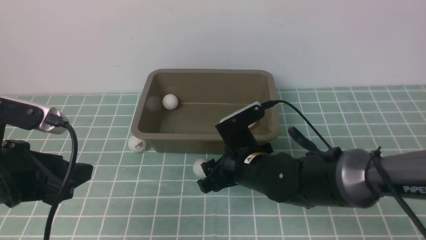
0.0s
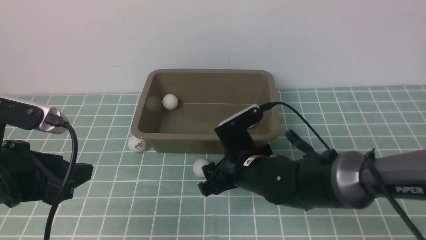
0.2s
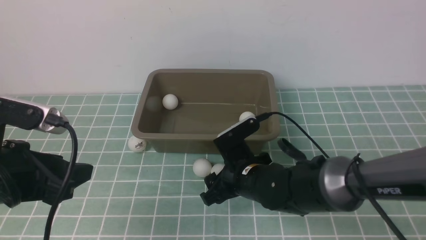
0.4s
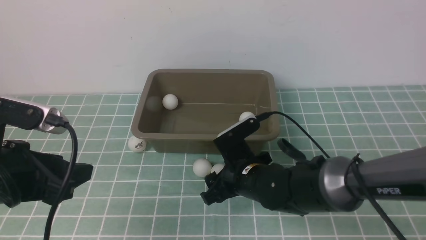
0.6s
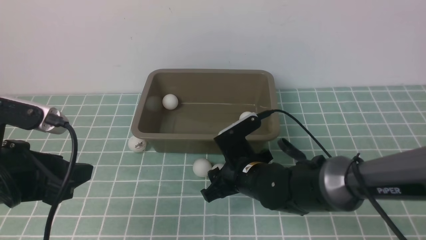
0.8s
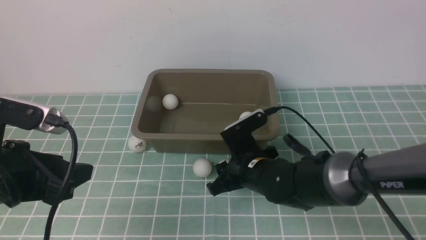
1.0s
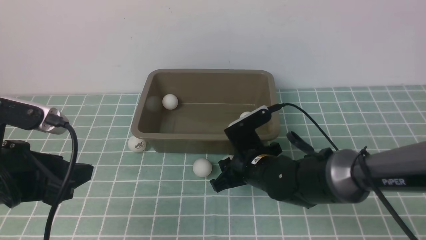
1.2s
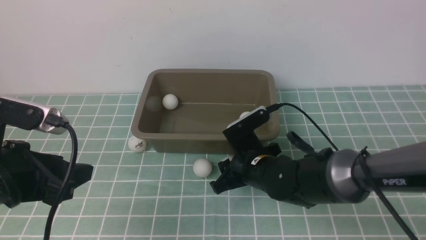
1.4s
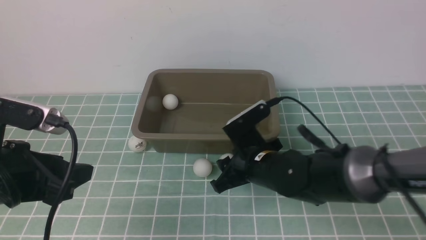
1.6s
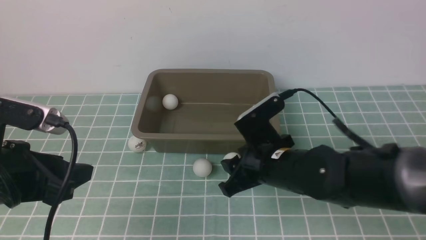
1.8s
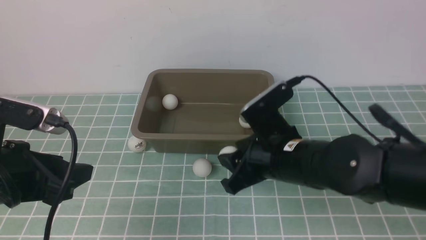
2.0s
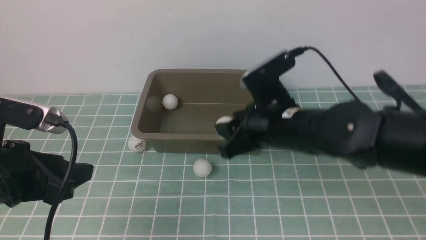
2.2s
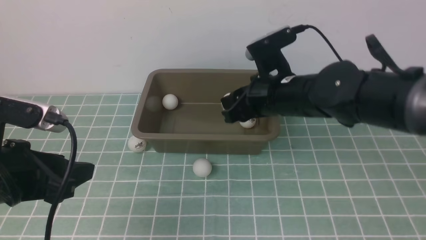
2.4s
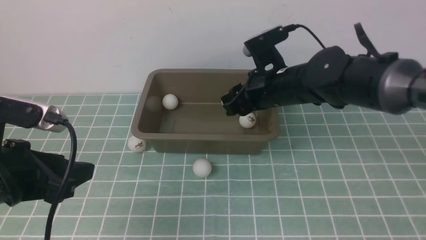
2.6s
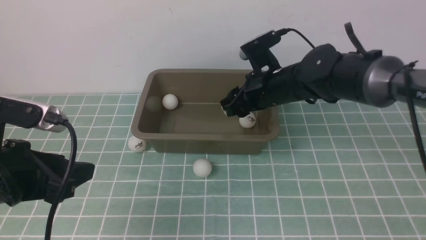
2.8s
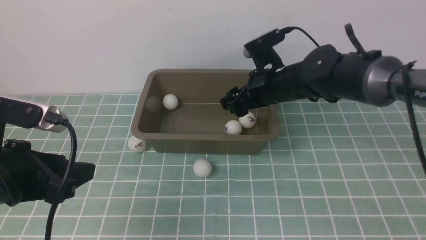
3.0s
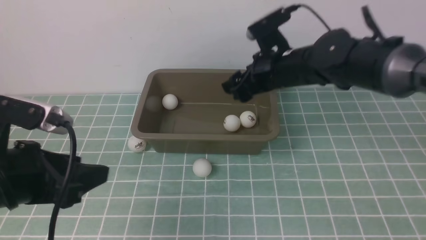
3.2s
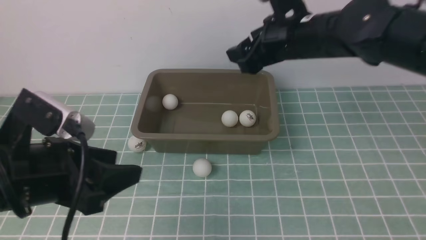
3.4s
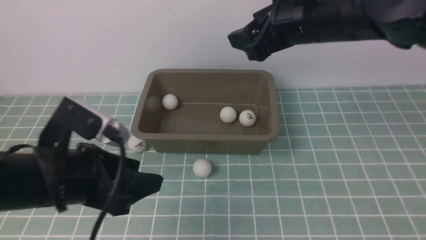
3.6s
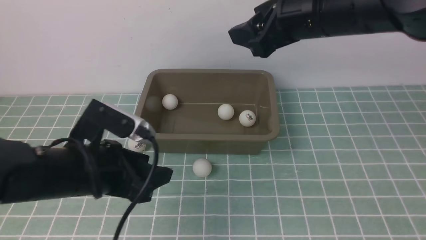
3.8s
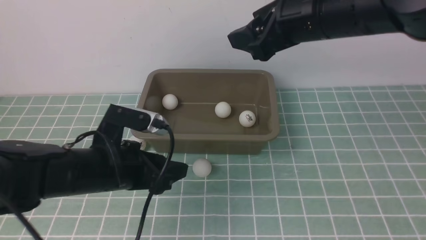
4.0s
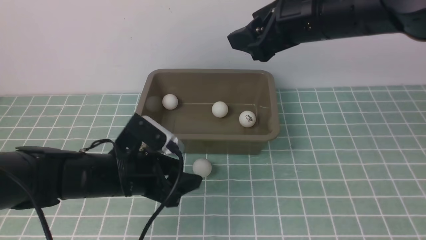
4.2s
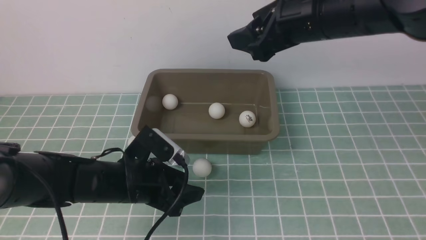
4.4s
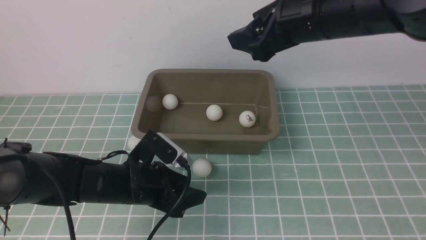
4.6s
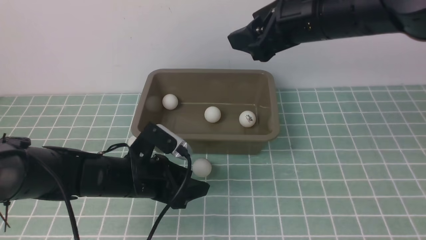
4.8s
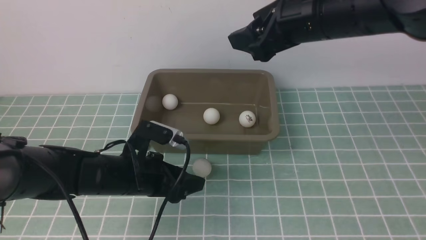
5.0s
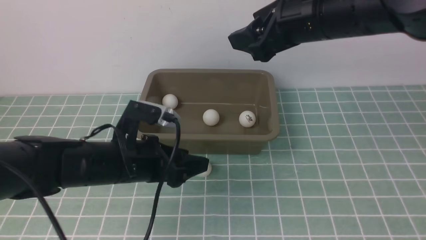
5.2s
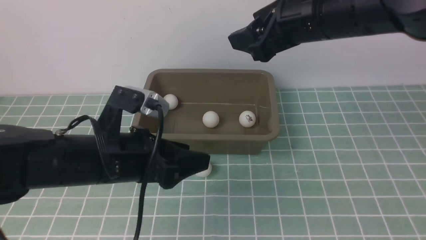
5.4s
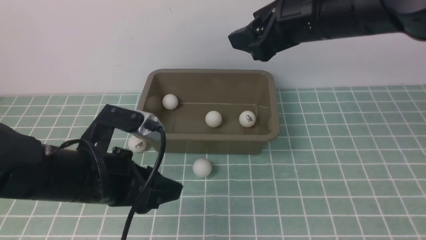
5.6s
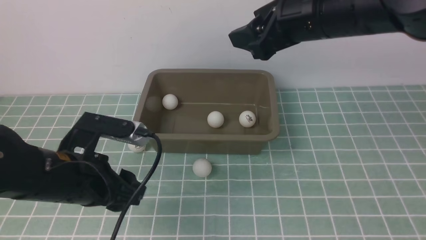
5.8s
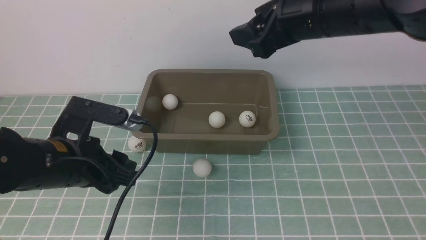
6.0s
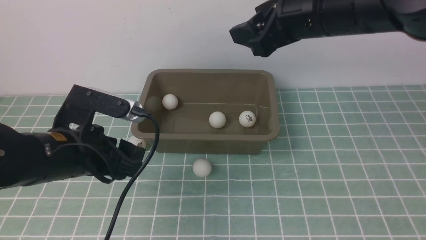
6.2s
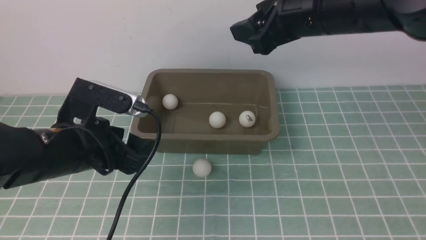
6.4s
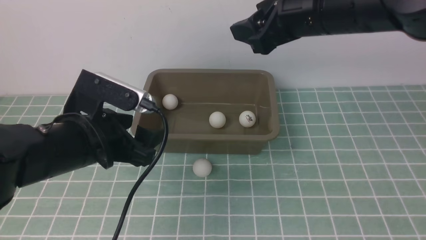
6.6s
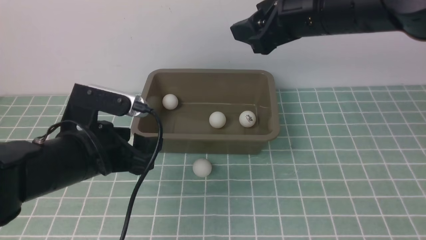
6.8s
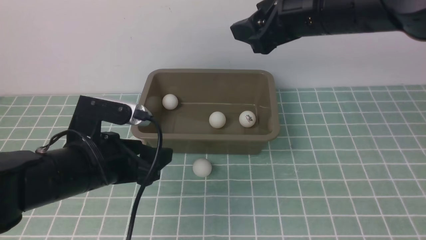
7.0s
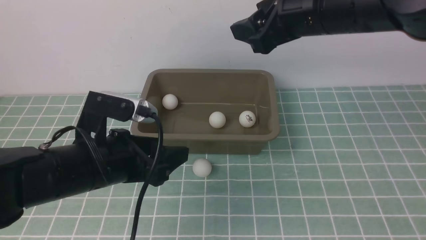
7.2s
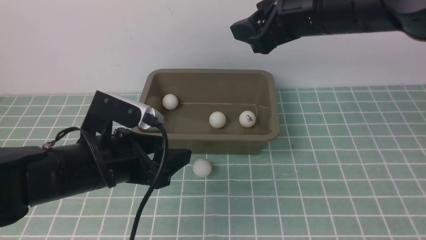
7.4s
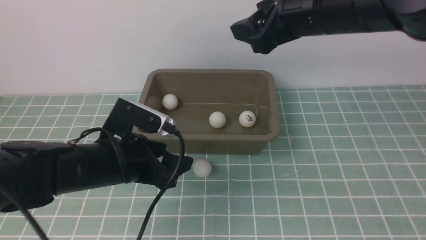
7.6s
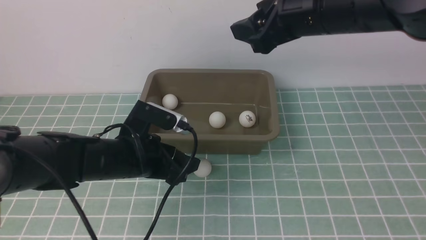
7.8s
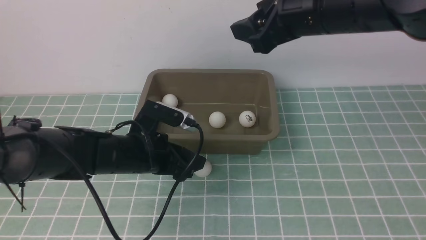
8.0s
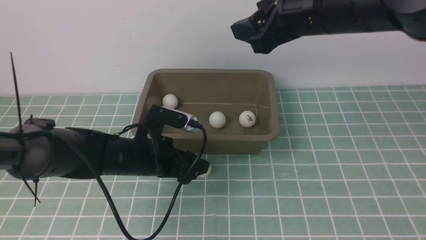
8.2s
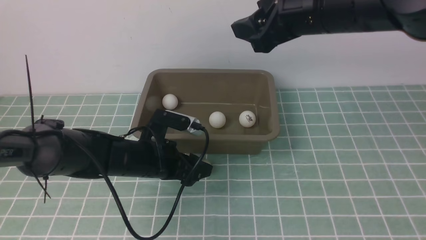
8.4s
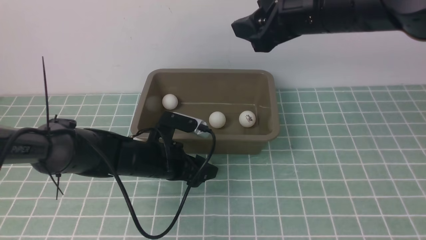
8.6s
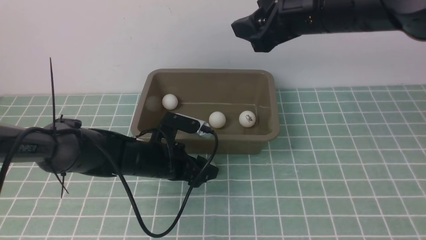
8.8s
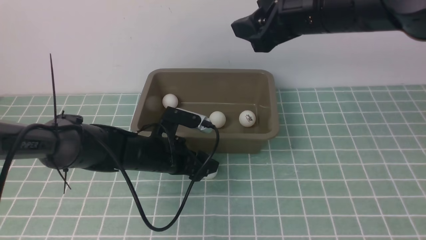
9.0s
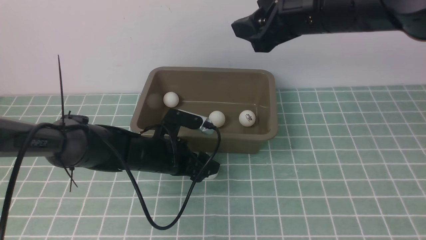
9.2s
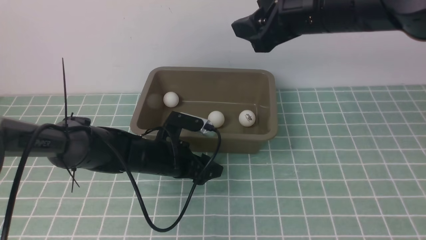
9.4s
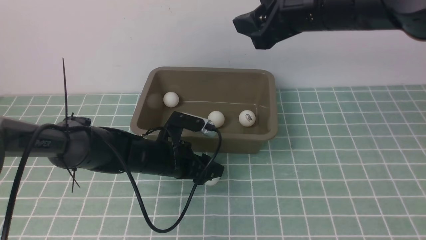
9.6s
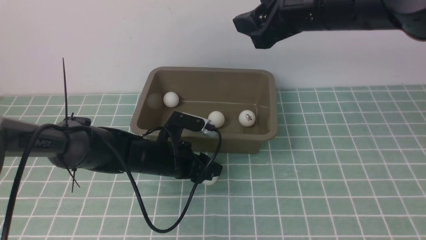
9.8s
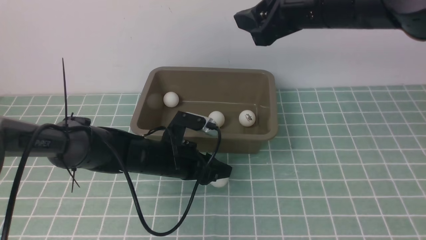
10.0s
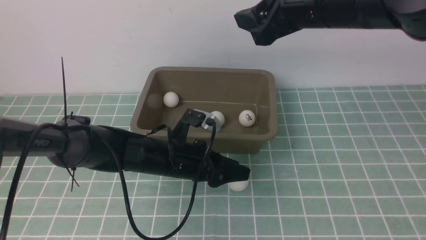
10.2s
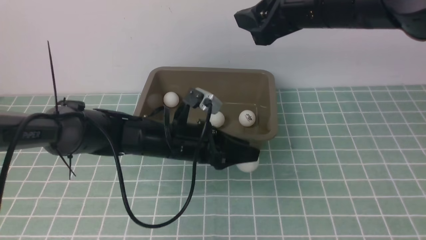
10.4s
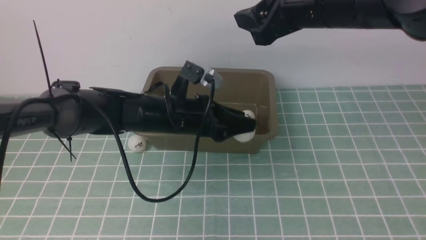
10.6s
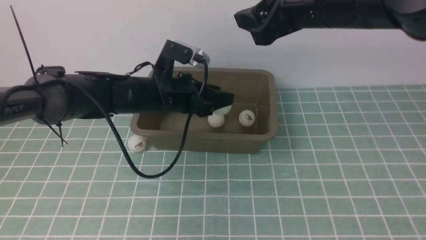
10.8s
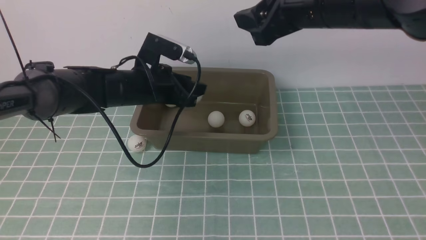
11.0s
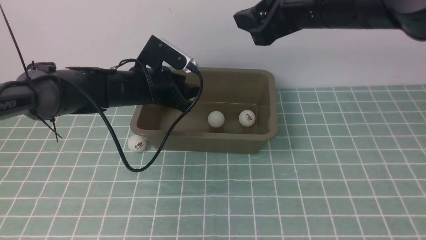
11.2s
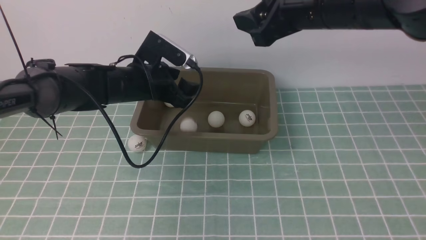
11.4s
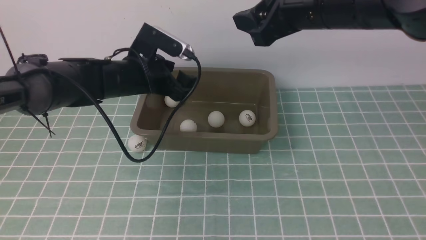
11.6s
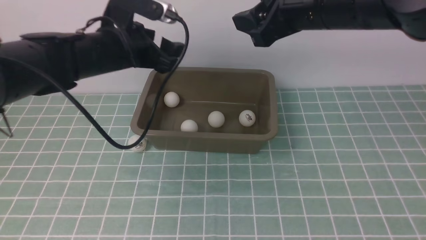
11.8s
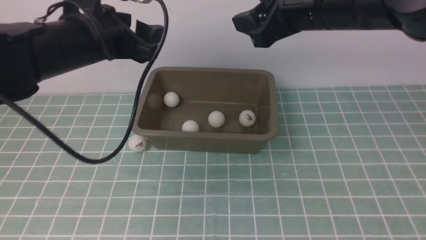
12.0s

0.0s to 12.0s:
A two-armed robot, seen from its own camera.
Step, 2.0s to 3.0s: use the right arm to put the table tennis ball into the box.
Step, 3.2s to 10.2s: use the left arm to clamp the table tennis ball closest to it.
Step, 10.4s to 11.6s: use the left arm to put the table tennis ball into the box.
0.0s to 1.6s: The right gripper heads upward, covering some 10 cm, and closes up.
1.6s to 3.0s: The right gripper is displaced forward by roughly 15 cm, and opens its fingers.
3.0s to 4.4s: The right gripper shifts about 10 cm upward and backward, while the left gripper is displaced downward, to the right and forward by some 20 cm.
4.4s to 6.0s: The left gripper heads upward, covering roughly 10 cm.
6.0s to 7.6s: The left gripper heads downward and forward, covering some 10 cm.
7.6s to 9.0s: The left gripper ends up approximately 5 cm from where it was.
9.0s to 10.4s: The left gripper is displaced upward by approximately 10 cm, and closes.
10.4s to 12.0s: The left gripper moves upward and to the left, some 15 cm, and opens up.

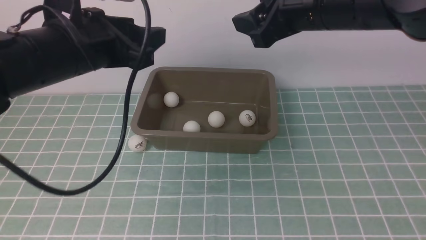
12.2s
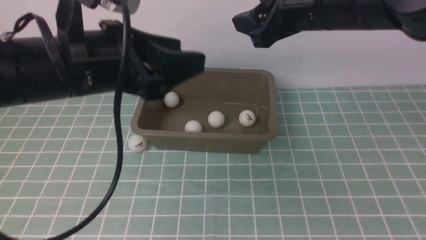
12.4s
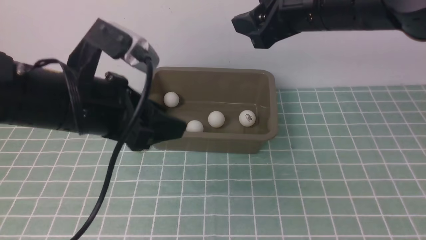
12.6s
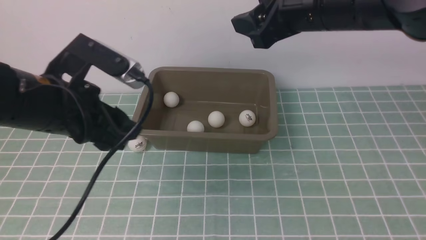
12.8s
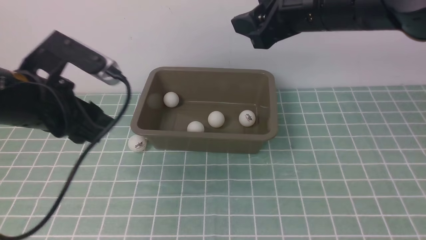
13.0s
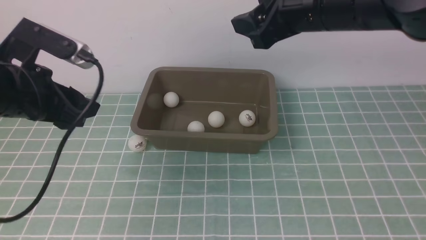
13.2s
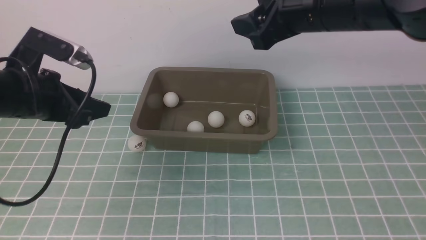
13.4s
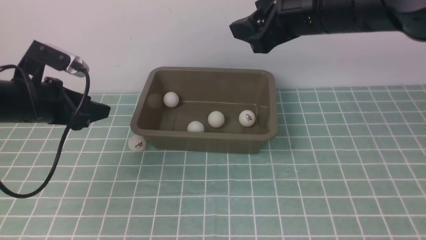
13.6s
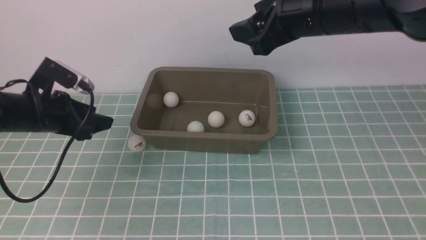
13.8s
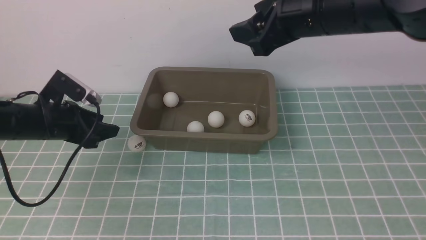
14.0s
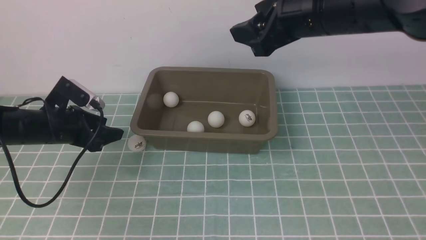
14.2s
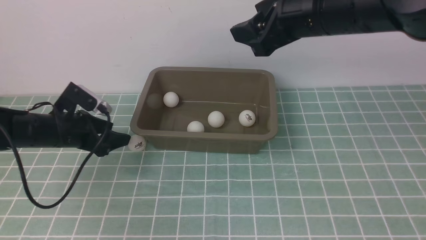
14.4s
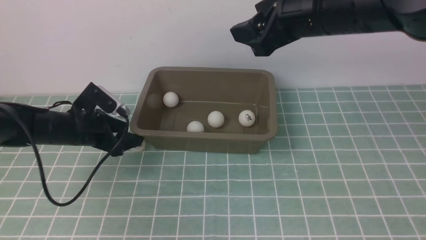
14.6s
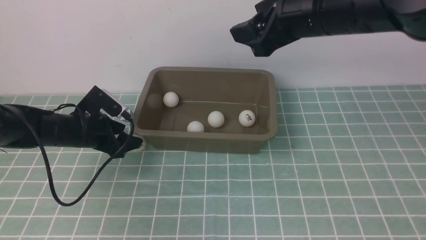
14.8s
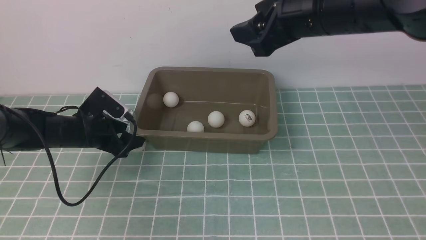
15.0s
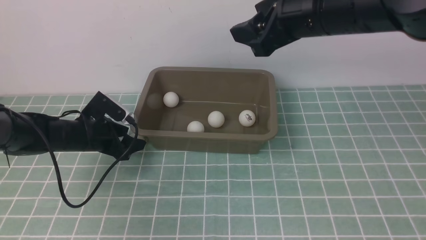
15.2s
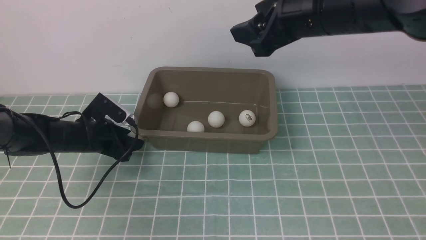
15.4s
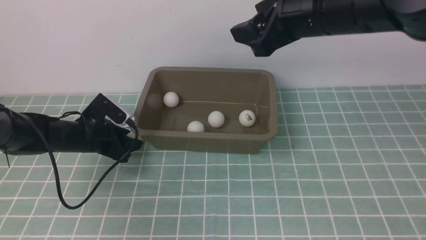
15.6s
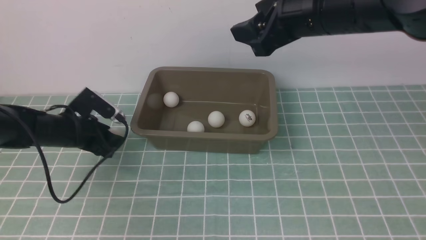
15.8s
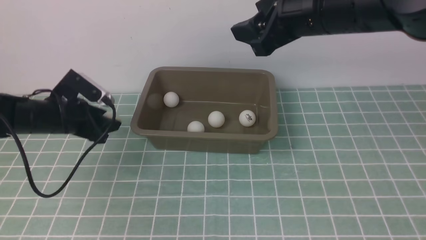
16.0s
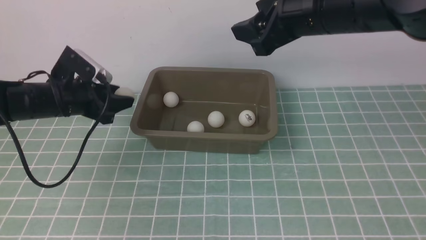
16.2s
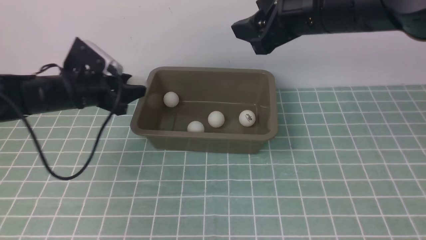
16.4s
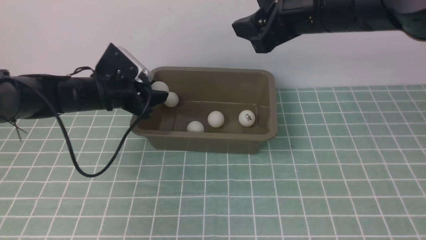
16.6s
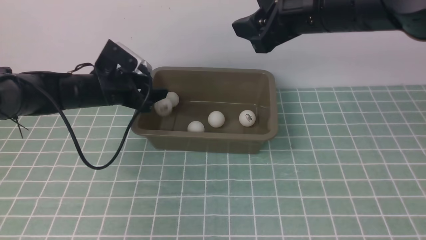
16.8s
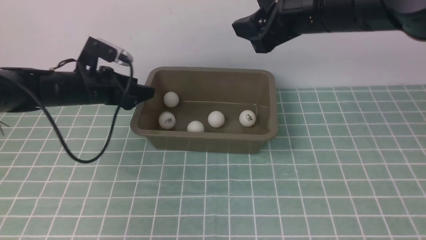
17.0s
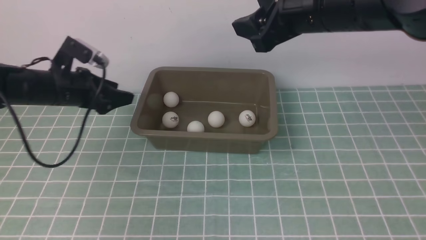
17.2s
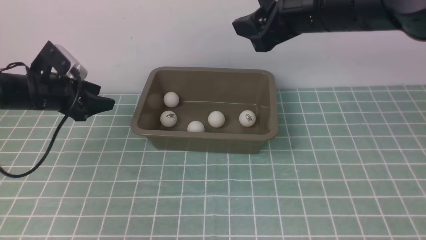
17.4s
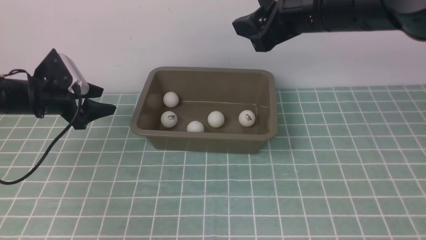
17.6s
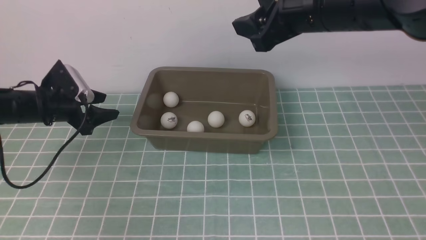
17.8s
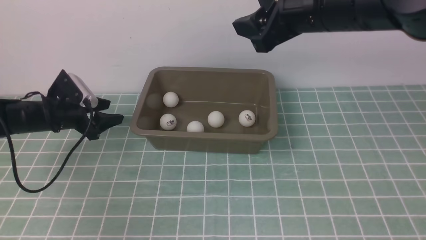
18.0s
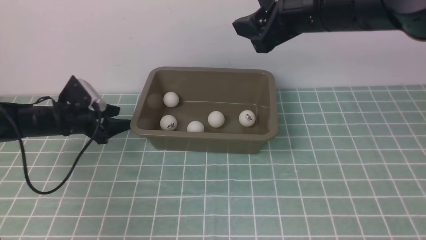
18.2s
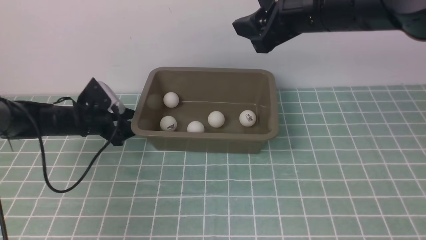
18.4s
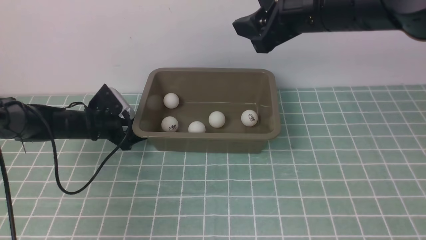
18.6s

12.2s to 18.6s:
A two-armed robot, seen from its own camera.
Step, 12.2s to 15.8s: use the left arm to clamp the table tennis ball closest to it.
Step, 16.0s to 17.0s: use the left arm to put the table tennis ball into the box.
12.2s to 13.8s: The left gripper shifts about 20 cm downward and to the left.
13.8s to 15.4s: The left gripper moves downward, some 5 cm, and closes its fingers.
15.4s to 17.0s: The left gripper is displaced upward by some 10 cm, and opens up.
17.0s to 18.6s: The left gripper goes about 10 cm downward.
